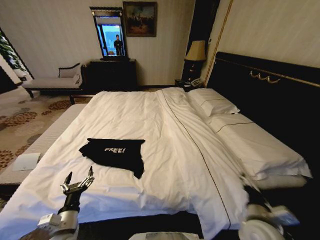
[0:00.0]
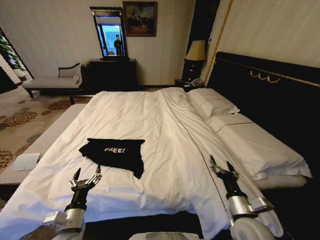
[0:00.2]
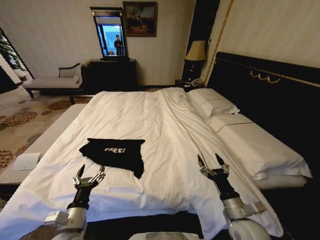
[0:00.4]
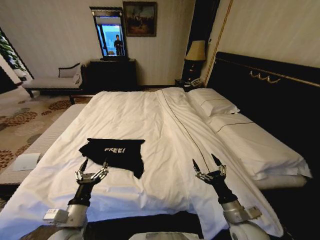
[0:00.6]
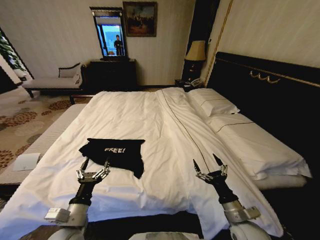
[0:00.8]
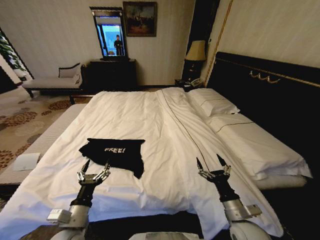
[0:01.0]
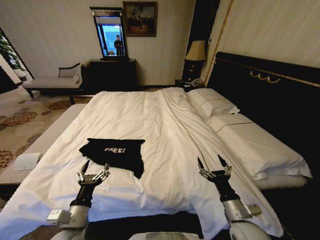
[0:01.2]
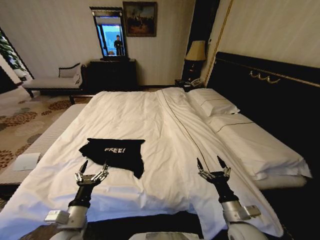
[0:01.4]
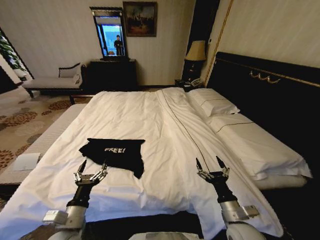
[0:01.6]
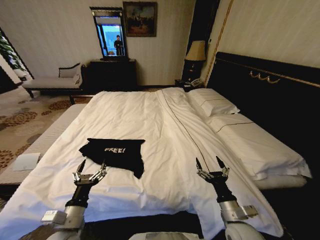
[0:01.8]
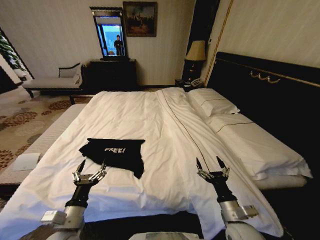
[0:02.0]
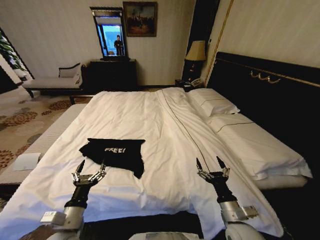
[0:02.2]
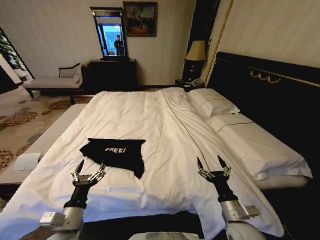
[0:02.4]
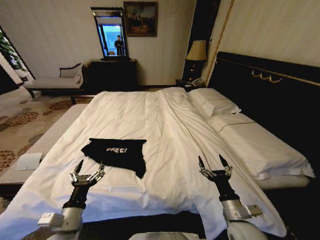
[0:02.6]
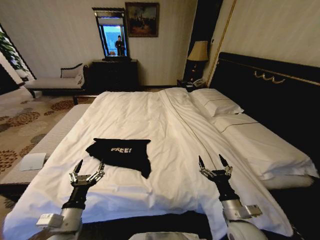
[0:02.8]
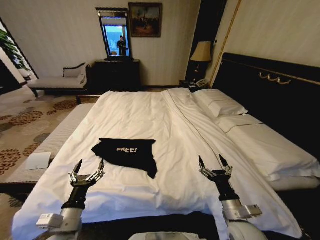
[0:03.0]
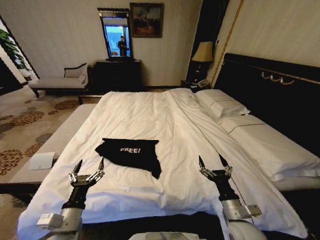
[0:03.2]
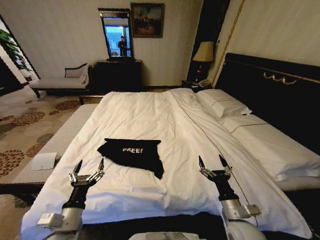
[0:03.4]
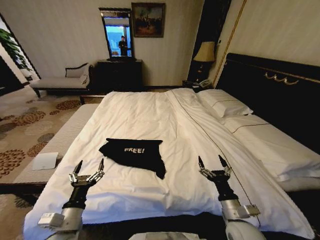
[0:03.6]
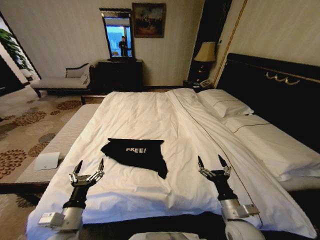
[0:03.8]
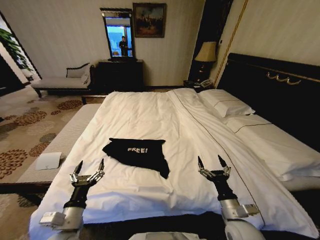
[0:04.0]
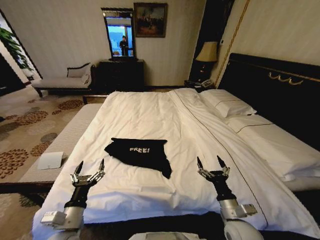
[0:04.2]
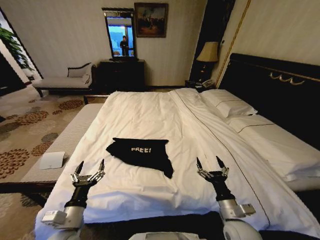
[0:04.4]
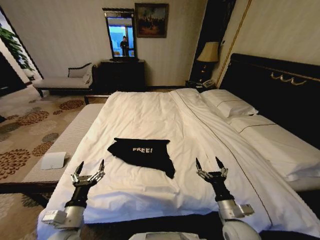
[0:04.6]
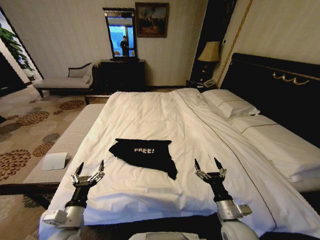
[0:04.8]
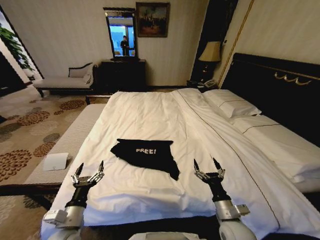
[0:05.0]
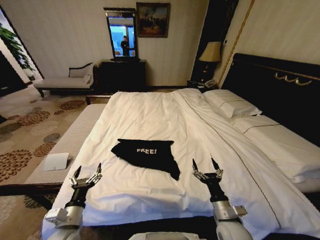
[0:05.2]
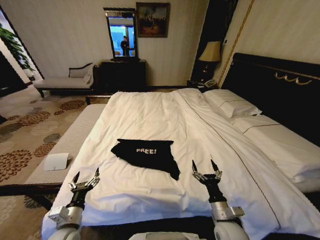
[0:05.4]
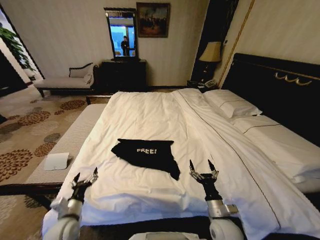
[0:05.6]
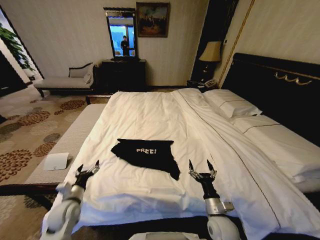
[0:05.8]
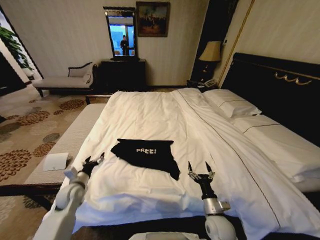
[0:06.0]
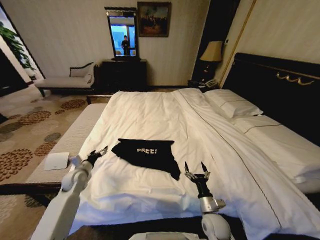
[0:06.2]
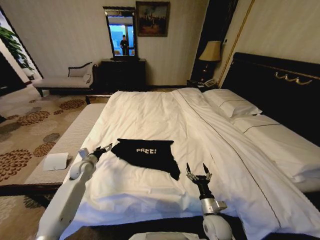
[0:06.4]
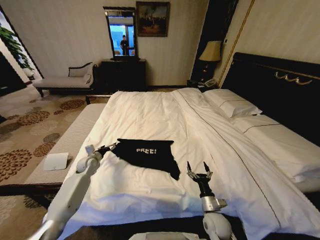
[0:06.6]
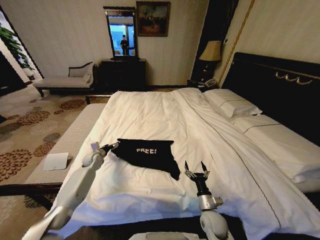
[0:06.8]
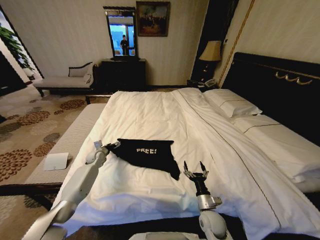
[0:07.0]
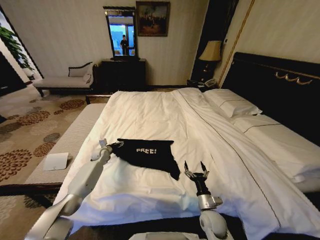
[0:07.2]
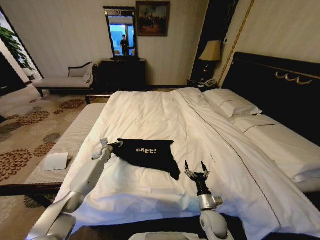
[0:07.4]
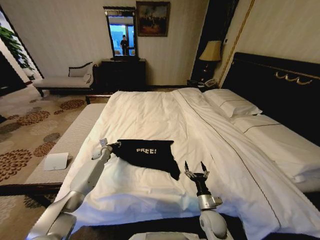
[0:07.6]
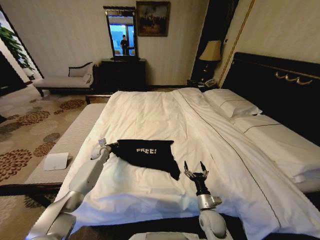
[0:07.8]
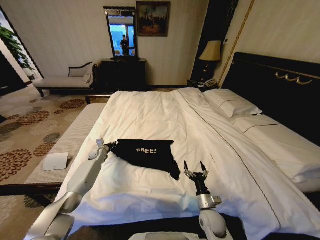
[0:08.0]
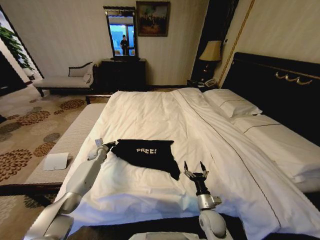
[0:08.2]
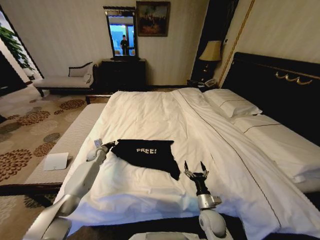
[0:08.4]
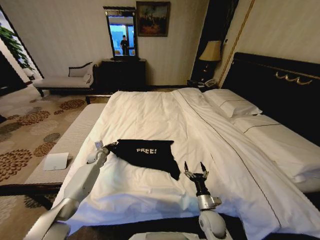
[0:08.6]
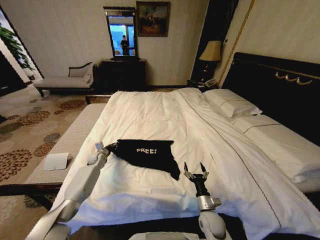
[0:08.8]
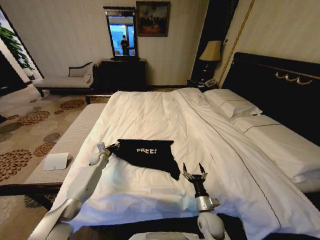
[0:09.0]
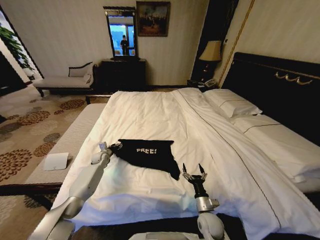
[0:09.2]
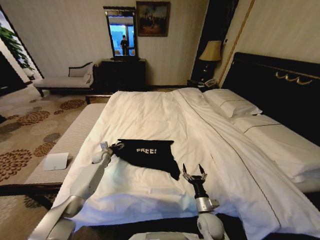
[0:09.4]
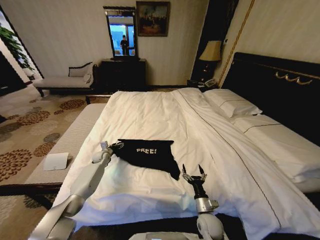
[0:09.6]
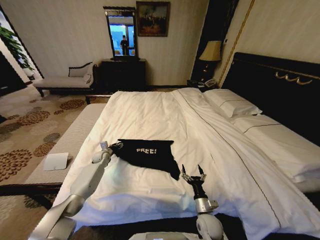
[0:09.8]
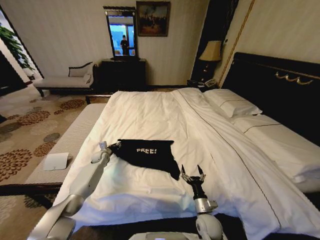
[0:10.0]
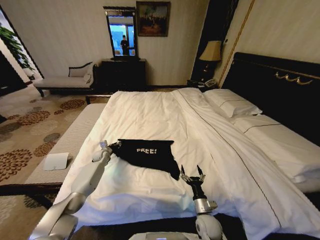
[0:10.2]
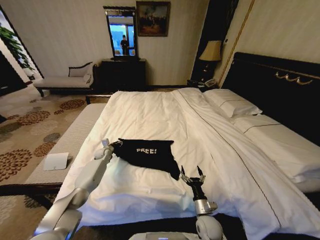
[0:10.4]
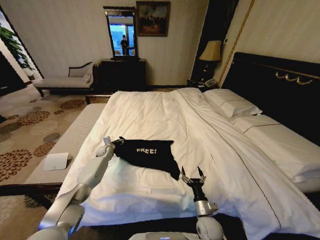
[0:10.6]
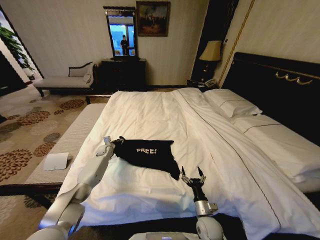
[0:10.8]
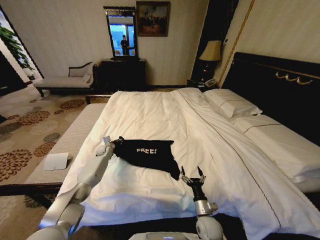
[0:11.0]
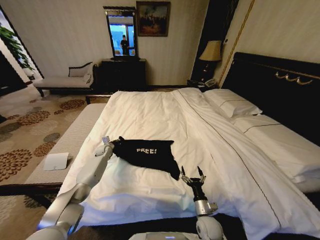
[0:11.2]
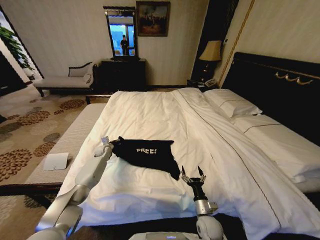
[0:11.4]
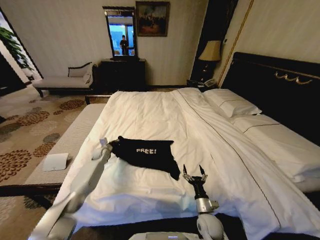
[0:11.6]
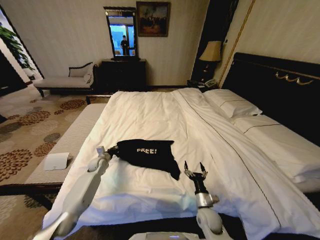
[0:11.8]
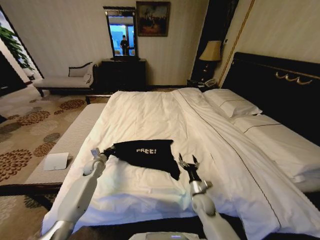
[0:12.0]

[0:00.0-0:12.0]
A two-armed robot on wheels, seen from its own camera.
Task of the whole recording: Fold the clothes on the bed.
0:04.4 to 0:06.0: The left gripper is displaced forward and to the left by roughly 20 cm. The right gripper is displaced downward by about 10 cm.
0:06.0 to 0:07.6: The left gripper shifts some 25 cm forward, and closes.
0:07.6 to 0:09.0: The left gripper closes, then reopens.
0:09.0 to 0:10.4: The left gripper opens, then closes once more.
0:10.4 to 0:12.0: The left gripper goes approximately 10 cm backward, and closes up; the right gripper shifts approximately 10 cm forward.

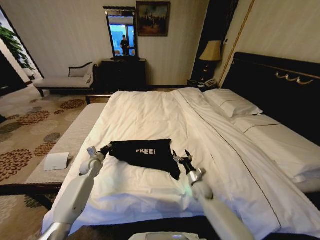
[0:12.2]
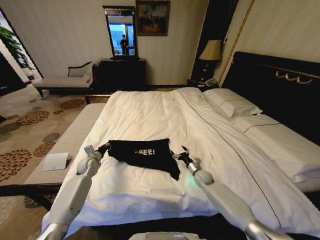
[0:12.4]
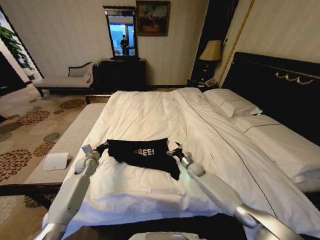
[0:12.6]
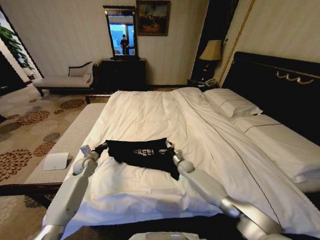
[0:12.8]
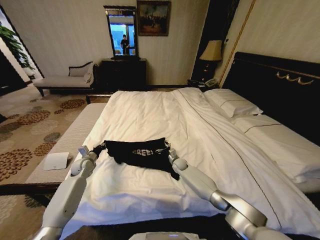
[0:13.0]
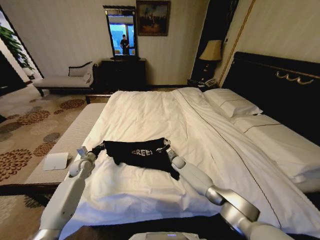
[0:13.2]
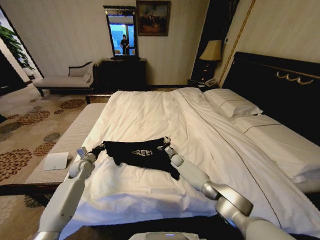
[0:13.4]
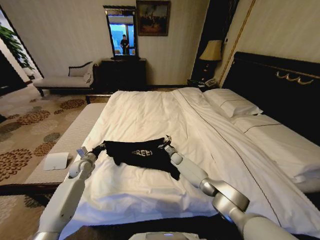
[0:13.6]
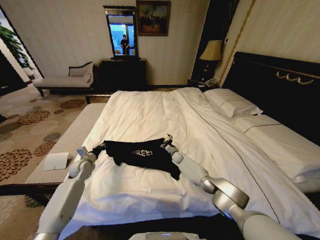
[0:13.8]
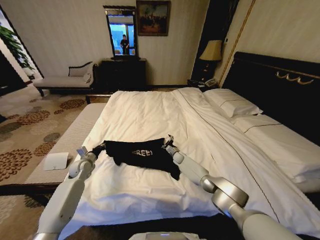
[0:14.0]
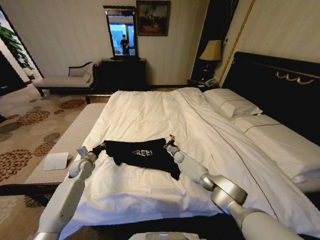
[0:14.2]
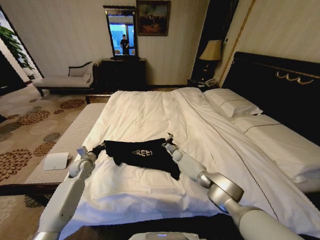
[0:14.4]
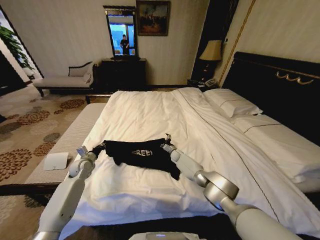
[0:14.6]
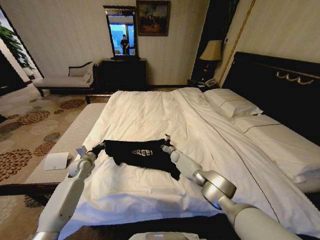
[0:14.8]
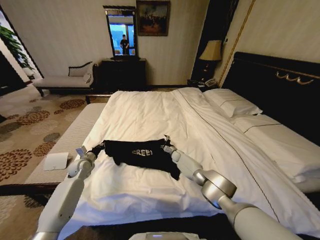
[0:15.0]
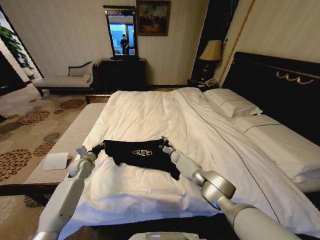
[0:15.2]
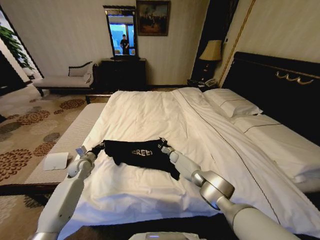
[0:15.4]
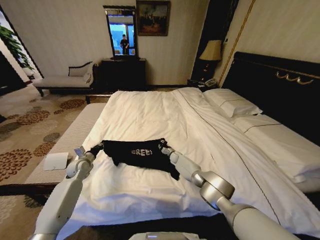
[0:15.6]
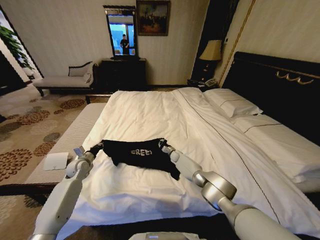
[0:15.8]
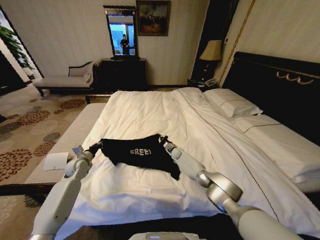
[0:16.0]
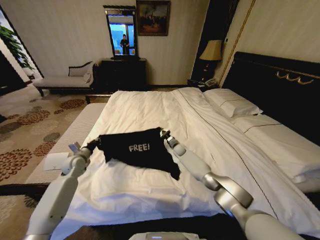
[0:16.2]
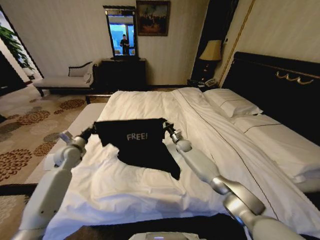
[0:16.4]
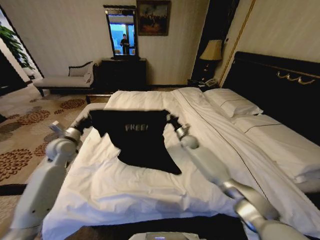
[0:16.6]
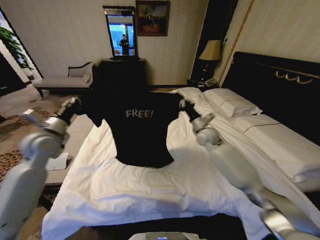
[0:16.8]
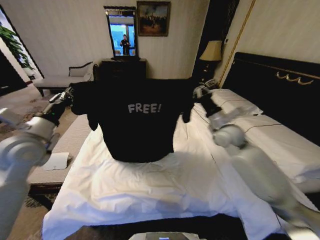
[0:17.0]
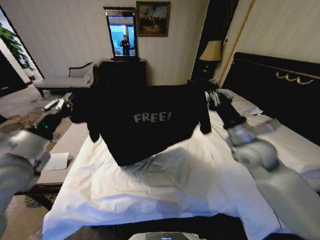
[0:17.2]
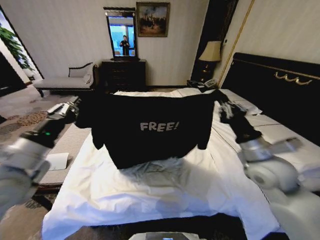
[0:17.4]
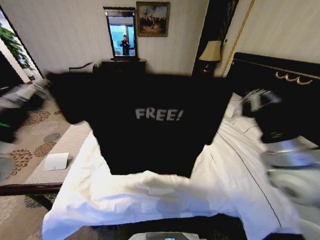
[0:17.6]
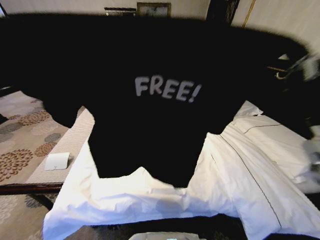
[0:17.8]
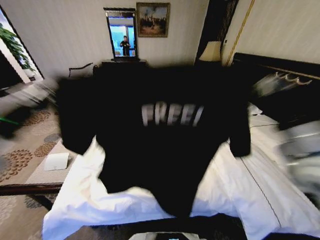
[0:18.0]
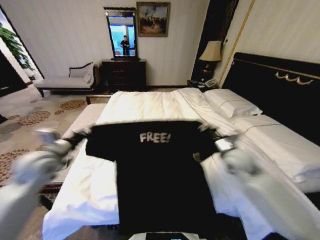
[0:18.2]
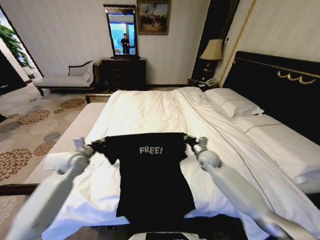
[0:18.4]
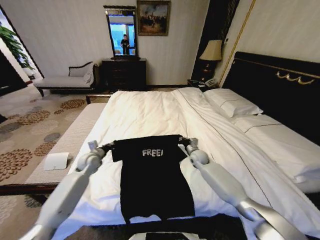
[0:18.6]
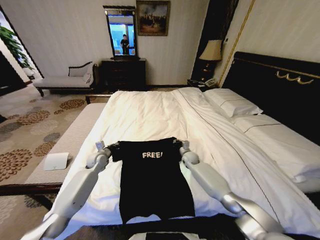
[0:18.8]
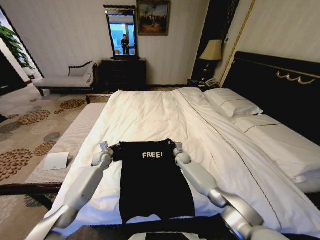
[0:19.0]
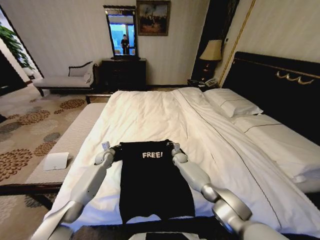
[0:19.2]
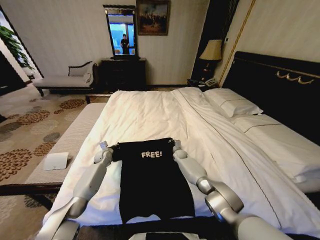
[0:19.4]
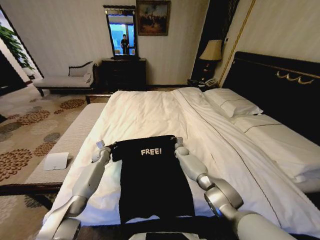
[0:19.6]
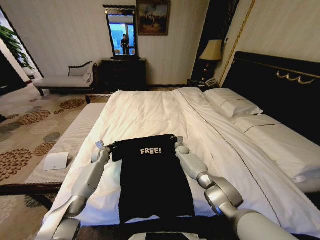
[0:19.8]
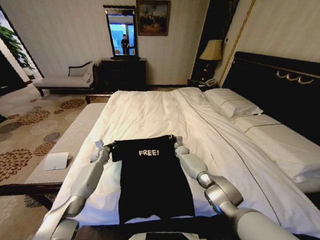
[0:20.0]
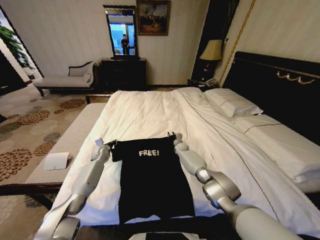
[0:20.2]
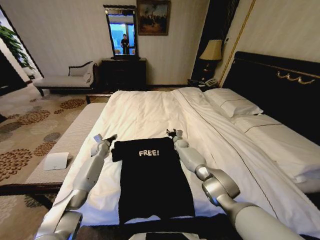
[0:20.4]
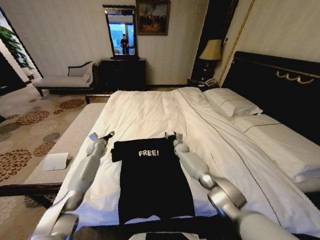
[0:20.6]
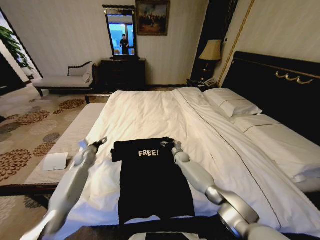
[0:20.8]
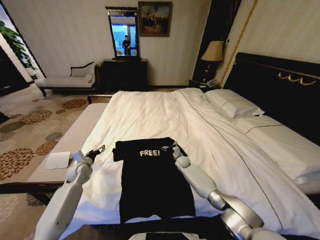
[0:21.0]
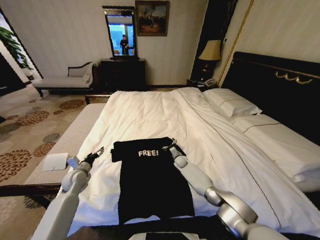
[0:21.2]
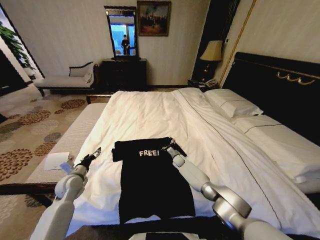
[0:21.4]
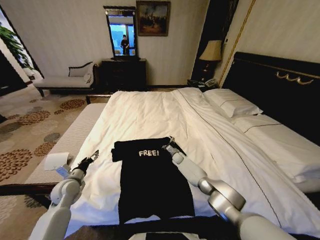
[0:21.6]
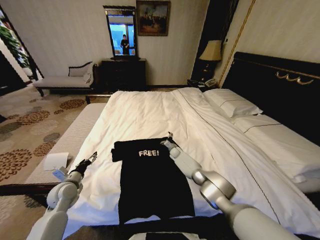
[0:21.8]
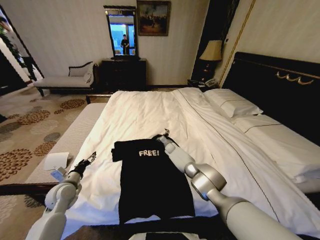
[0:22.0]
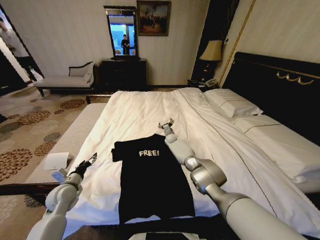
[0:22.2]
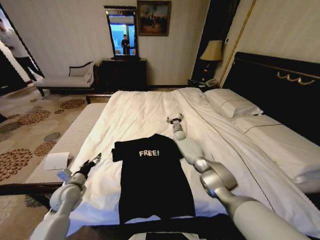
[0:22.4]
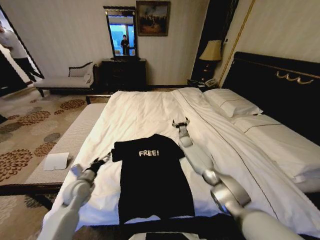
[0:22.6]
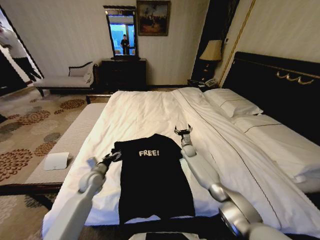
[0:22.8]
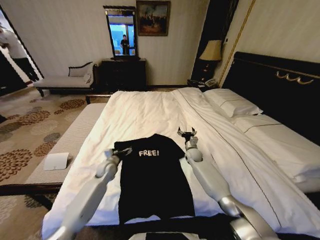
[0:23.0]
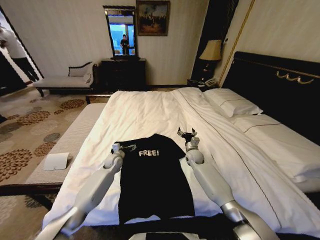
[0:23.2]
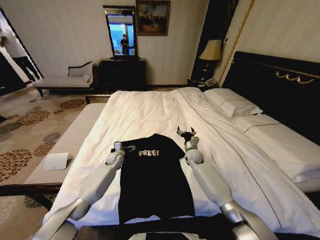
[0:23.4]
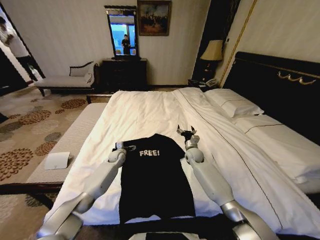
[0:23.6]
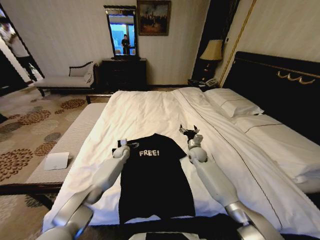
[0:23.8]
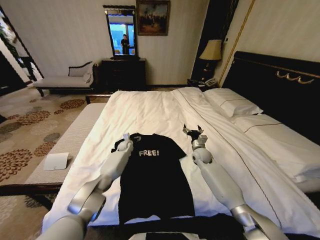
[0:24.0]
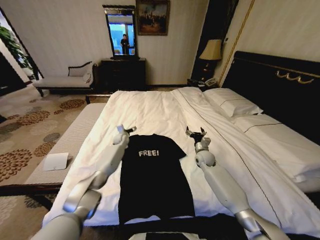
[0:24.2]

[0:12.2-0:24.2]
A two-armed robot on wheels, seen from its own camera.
Task of the whole recording: Fold the clothes on the bed.
0:12.2 to 0:13.8: The right gripper travels forward by about 20 cm.
0:13.8 to 0:15.2: The grippers move only a little.
0:15.2 to 0:16.6: Both grippers travel together upward, roughly 20 cm. The right gripper closes its fingers.
0:16.6 to 0:18.2: The left gripper is displaced backward by approximately 10 cm, while the right gripper is displaced backward, to the right and upward by roughly 25 cm.
0:18.2 to 0:19.8: The left gripper shifts approximately 35 cm downward and forward. Meanwhile the right gripper goes roughly 35 cm downward, forward and to the left.
0:19.8 to 0:21.2: The left gripper shifts about 15 cm backward, and opens up; the right gripper heads backward, covering some 5 cm, and opens.
0:21.2 to 0:22.6: The right gripper moves upward and forward, about 15 cm; the left gripper moves roughly 5 cm.
0:22.6 to 0:24.2: The right gripper moves backward and to the right, about 15 cm. Meanwhile the left gripper moves forward, some 30 cm.
